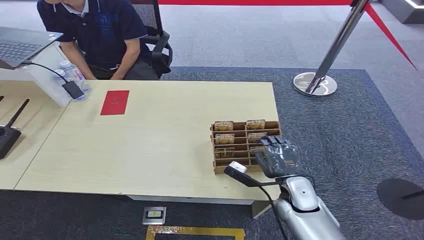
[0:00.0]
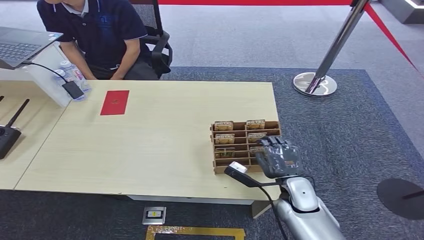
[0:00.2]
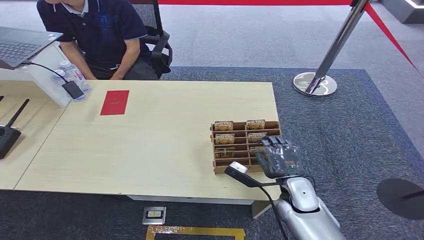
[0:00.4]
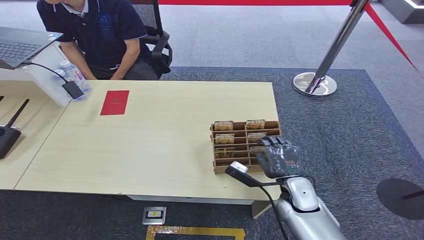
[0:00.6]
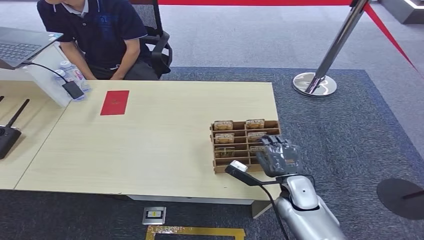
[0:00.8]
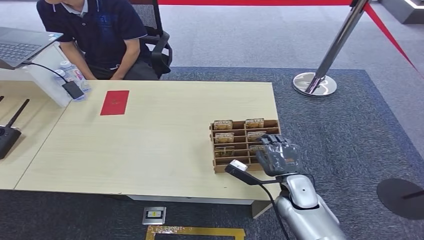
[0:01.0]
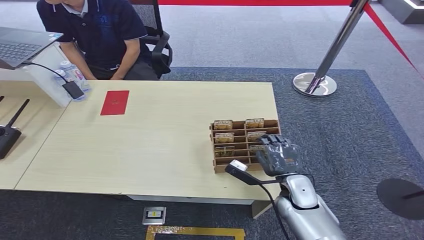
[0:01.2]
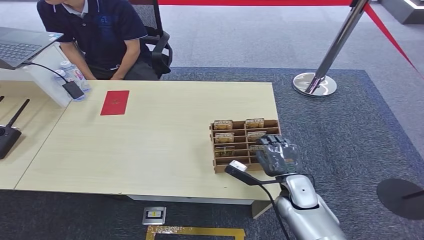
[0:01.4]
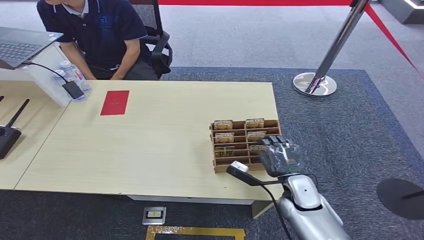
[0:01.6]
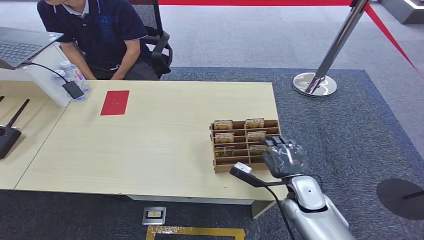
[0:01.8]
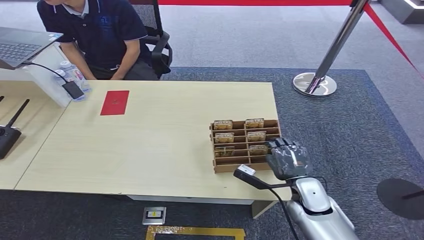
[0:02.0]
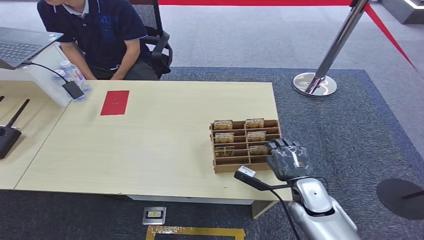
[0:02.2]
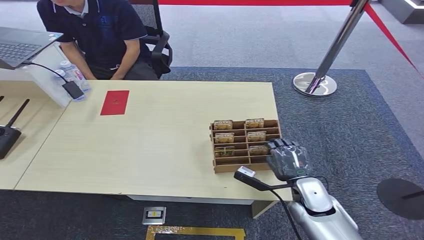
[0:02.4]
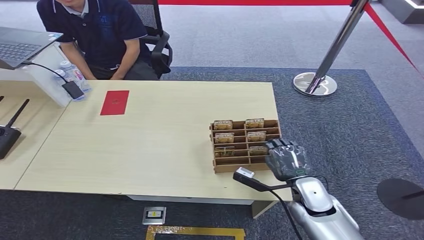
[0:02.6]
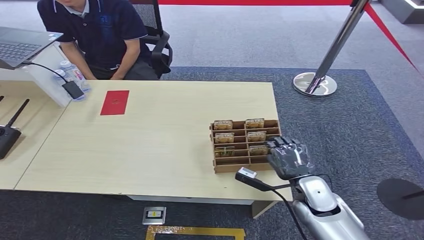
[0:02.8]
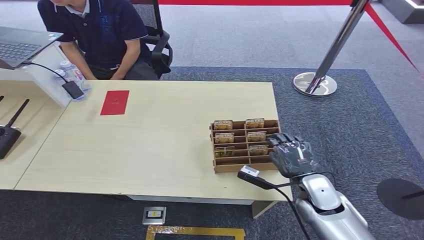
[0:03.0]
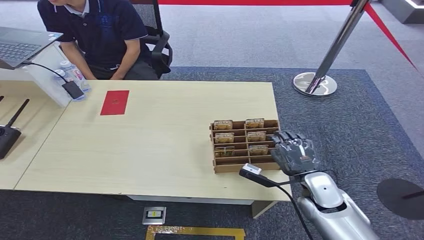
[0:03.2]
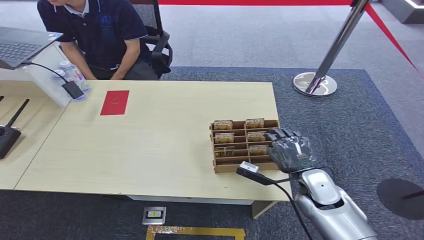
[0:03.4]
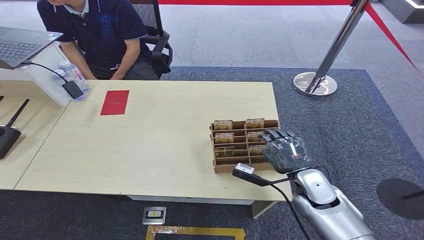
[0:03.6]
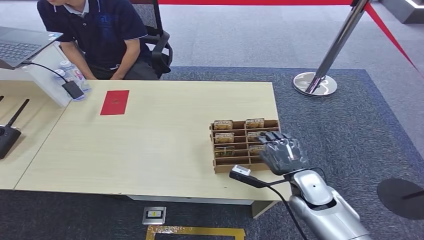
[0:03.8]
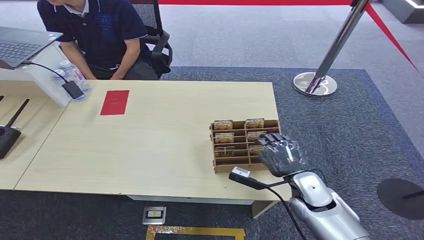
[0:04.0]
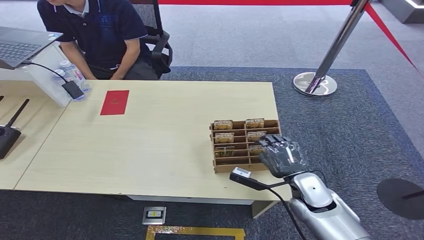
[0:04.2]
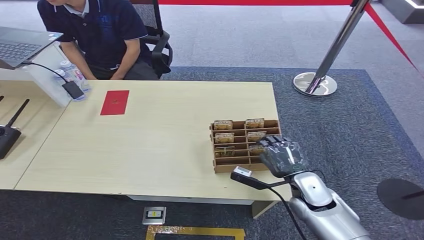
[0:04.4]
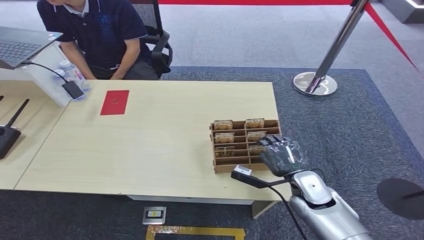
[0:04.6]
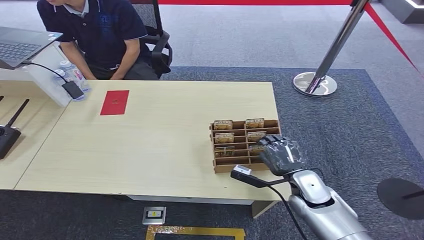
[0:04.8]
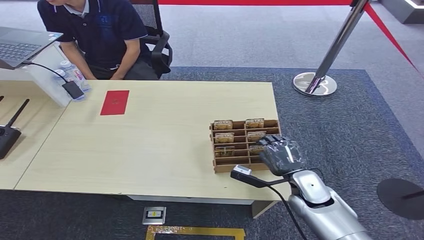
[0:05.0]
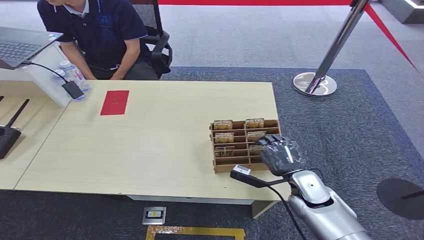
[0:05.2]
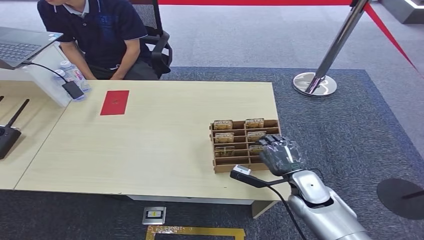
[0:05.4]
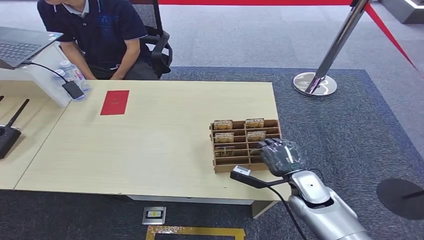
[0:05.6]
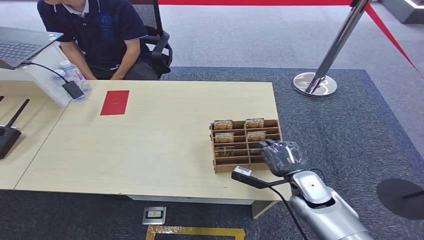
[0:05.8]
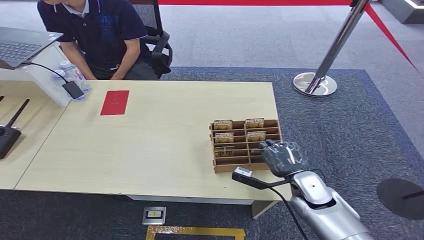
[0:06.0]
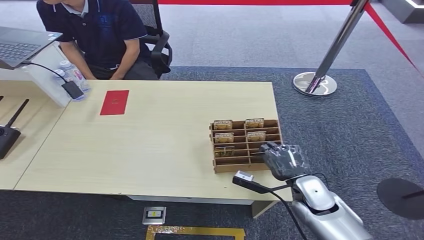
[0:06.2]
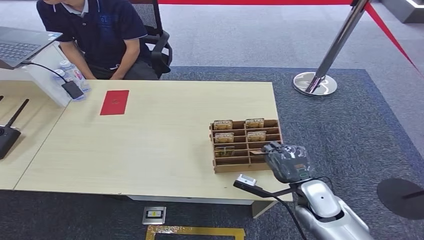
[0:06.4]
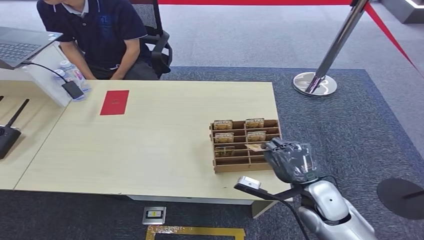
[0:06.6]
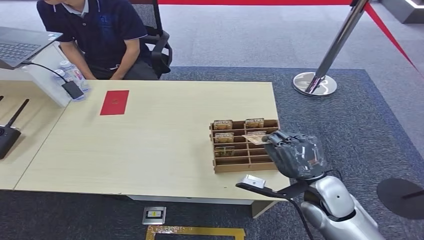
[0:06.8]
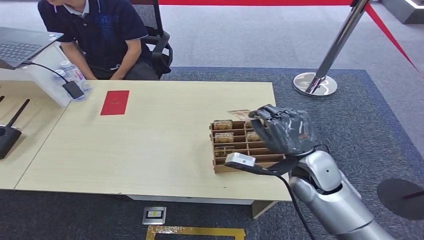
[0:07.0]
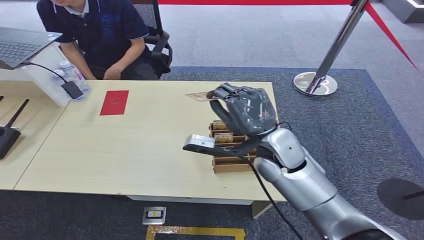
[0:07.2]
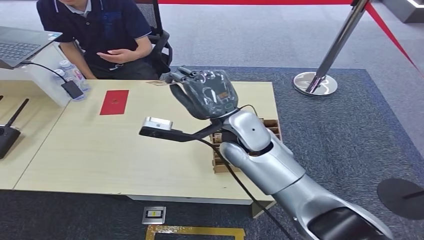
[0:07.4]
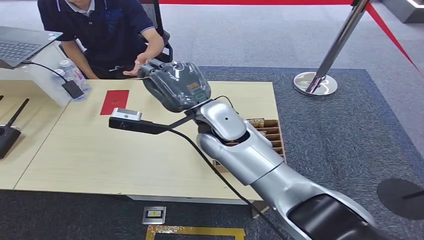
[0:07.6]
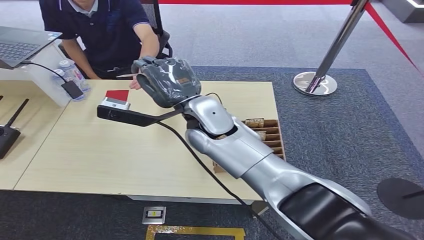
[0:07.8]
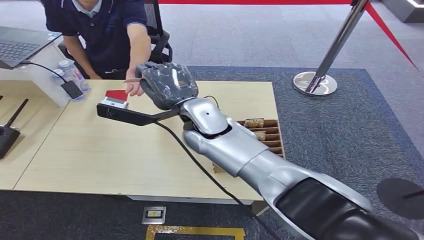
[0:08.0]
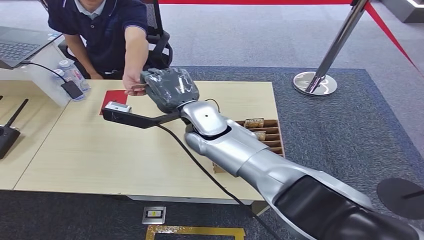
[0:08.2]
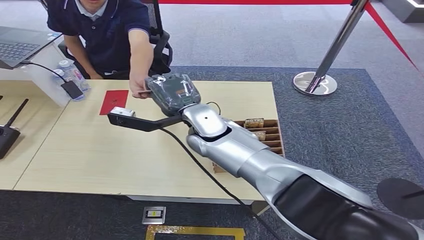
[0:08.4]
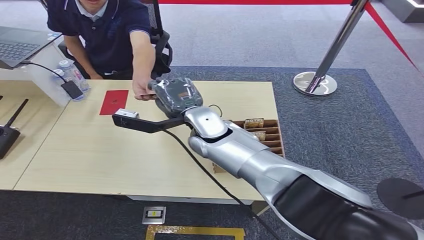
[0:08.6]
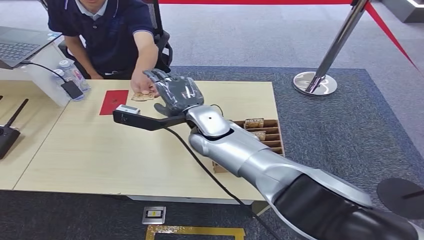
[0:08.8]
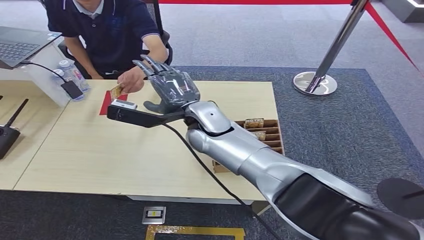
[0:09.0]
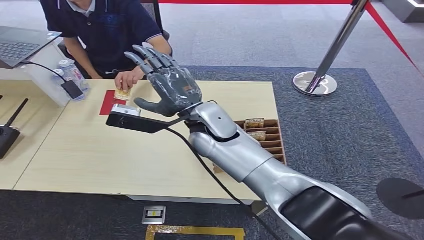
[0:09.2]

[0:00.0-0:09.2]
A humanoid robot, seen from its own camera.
Step, 0:00.0 to 0:06.8: Pick up the room card from the card holder.
Step, 0:07.0 to 0:09.2: Hand the room card to the target.
0:01.6 to 0:04.6: There are only small adjustments of the hands.
0:04.6 to 0:06.2: Neither hand changes place.
0:06.2 to 0:07.6: The right hand heads upward, to the left and forward, covering roughly 30 cm.
